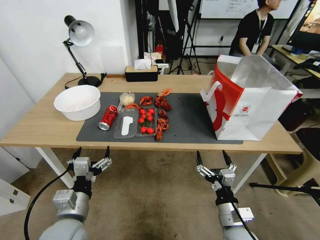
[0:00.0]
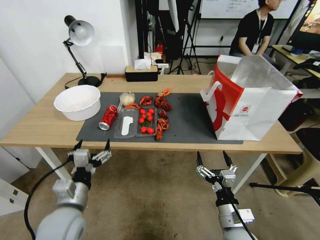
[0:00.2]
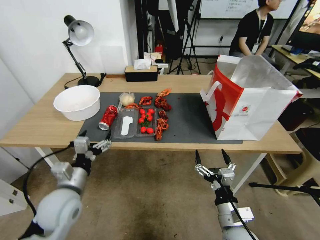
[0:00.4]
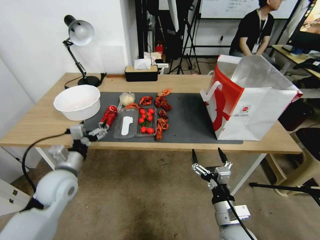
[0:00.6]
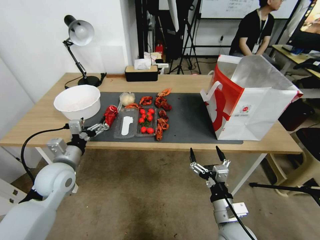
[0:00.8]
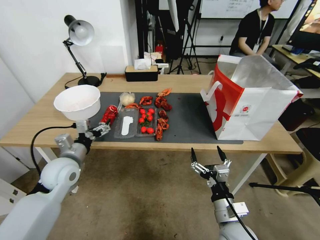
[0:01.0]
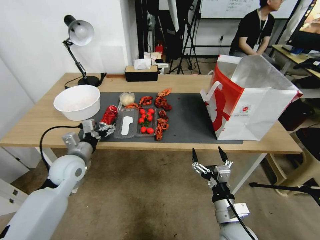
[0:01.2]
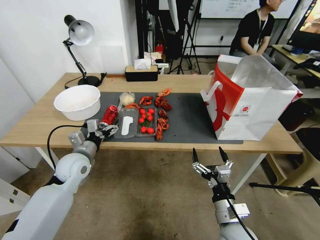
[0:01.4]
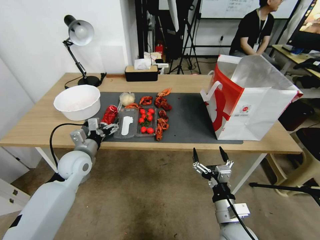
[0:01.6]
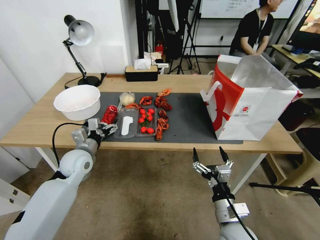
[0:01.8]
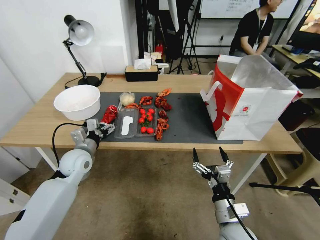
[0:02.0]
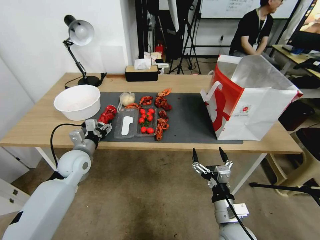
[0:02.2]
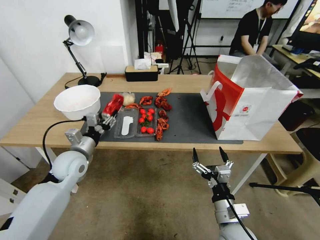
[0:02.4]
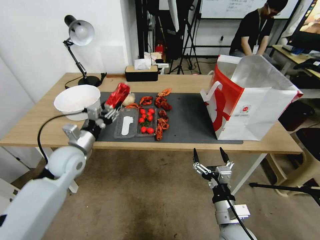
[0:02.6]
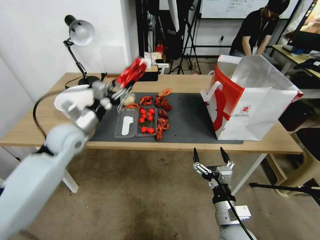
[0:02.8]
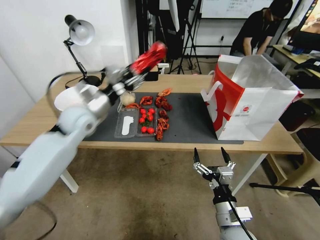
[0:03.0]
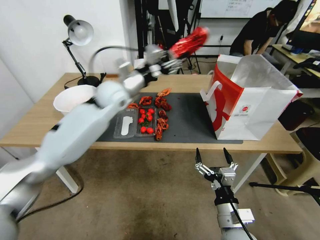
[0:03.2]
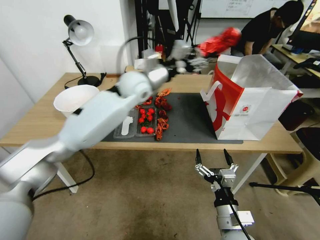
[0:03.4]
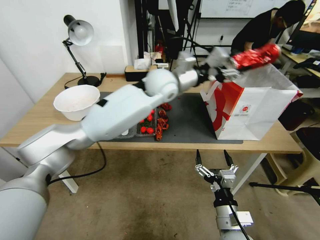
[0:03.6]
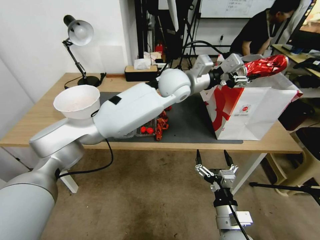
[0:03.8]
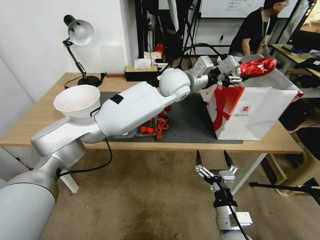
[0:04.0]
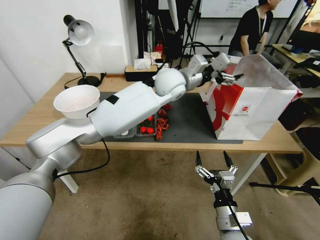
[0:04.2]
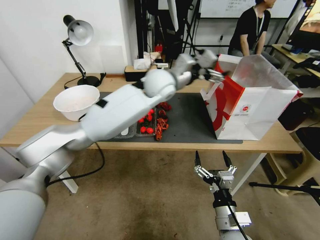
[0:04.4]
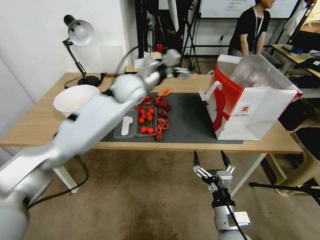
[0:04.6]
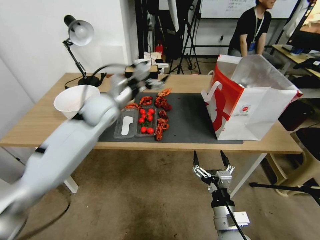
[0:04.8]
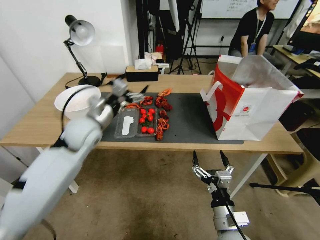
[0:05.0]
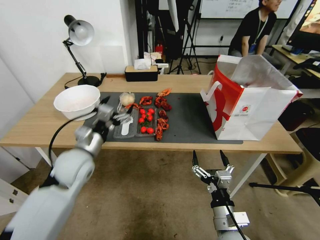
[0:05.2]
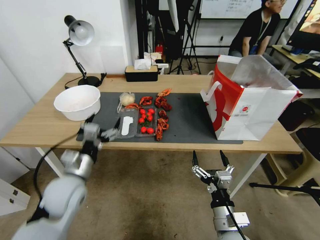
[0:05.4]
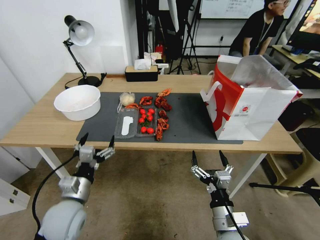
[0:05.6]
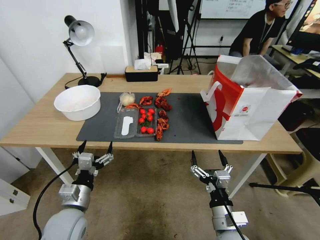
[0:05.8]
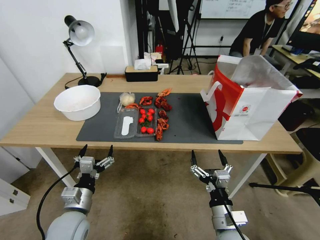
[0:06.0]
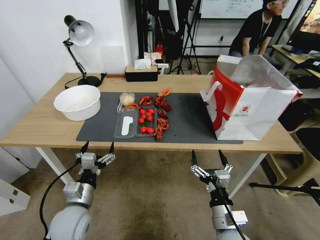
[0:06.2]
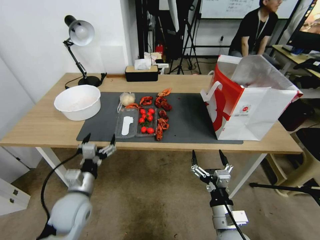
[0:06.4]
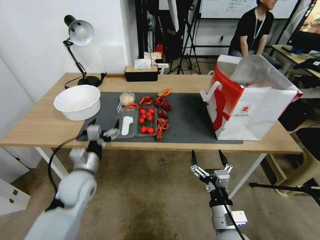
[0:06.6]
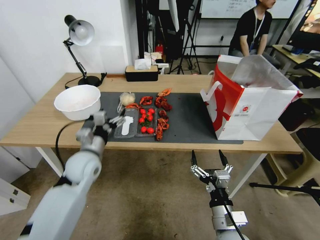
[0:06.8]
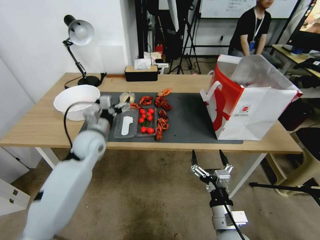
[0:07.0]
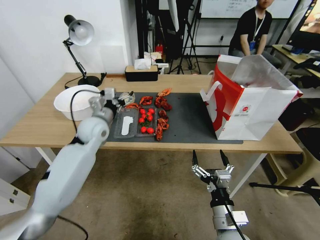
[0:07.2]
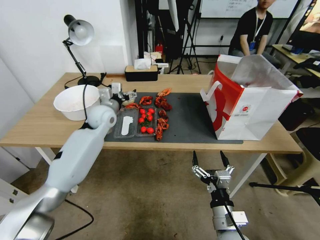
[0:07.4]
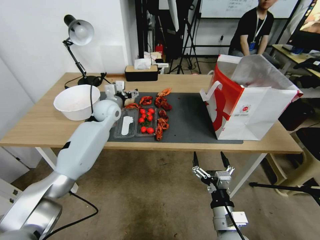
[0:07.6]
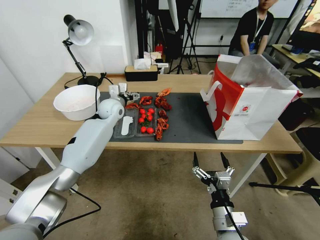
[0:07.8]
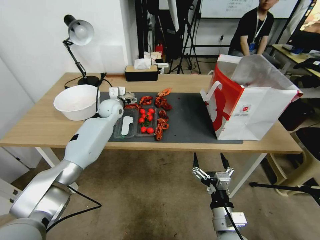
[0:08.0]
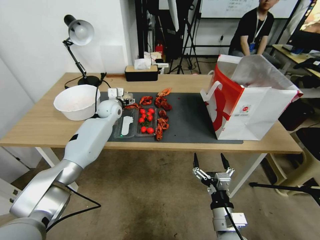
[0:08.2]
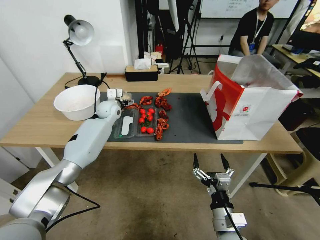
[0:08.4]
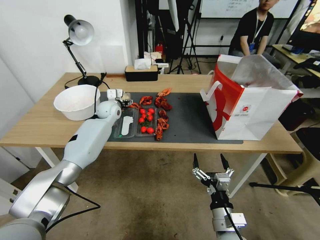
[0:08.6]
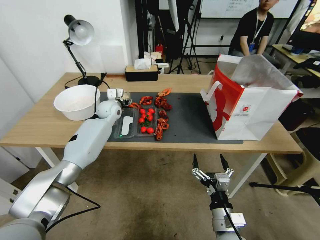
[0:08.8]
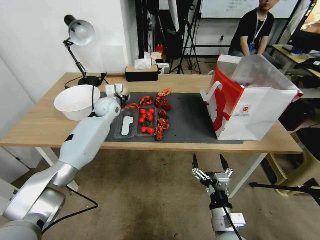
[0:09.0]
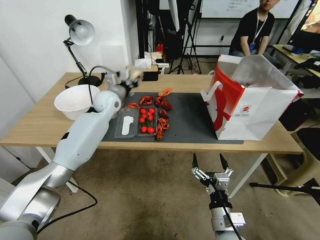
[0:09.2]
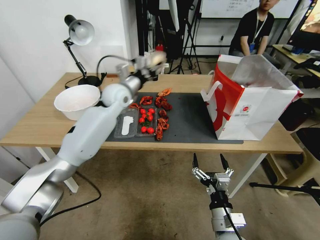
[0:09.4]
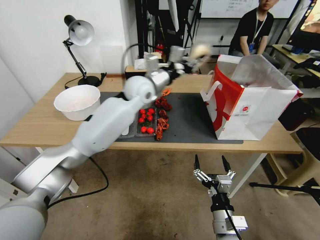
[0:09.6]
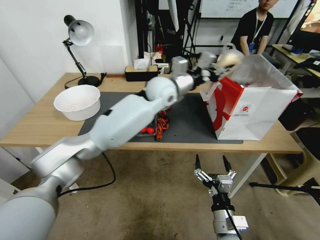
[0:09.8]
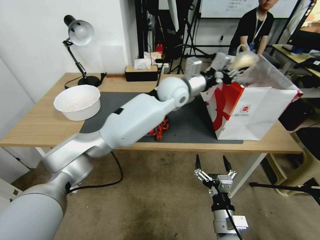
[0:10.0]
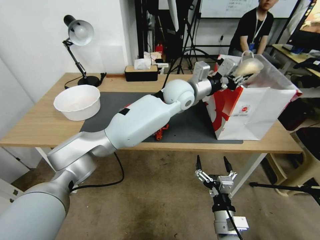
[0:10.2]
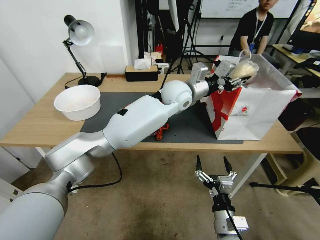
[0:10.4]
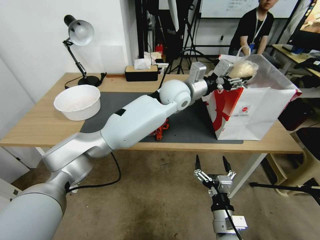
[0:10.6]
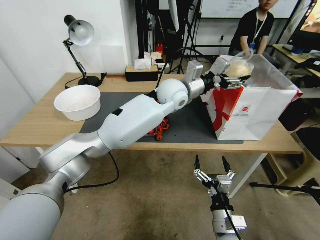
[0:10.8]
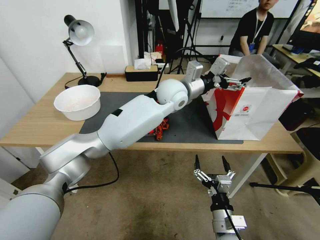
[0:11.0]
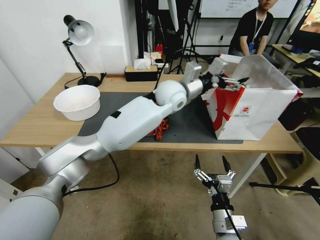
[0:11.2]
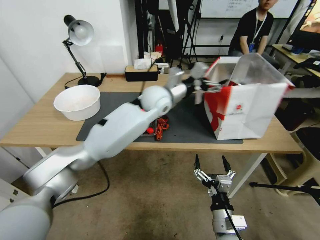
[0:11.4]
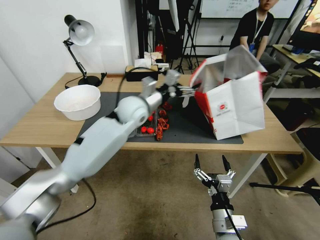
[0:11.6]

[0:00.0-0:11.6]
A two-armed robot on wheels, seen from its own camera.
0:00.0 to 0:01.4: The left gripper travels forward by some 15 cm.
0:01.4 to 0:02.8: The left gripper shifts some 5 cm upward, and closes up.
0:02.8 to 0:04.4: The left gripper moves to the right, forward and upward, approximately 40 cm, and opens up.
0:04.4 to 0:05.8: The left gripper is displaced backward, to the left and downward by some 50 cm.
0:05.8 to 0:07.2: The left gripper travels forward and upward by about 25 cm.
0:07.2 to 0:08.8: The left gripper heads forward, covering some 20 cm, and closes.
0:08.8 to 0:10.2: The left gripper is displaced to the right and upward by roughly 30 cm, and closes up.
0:10.2 to 0:11.6: The left gripper moves to the left, some 15 cm, and opens its fingers.

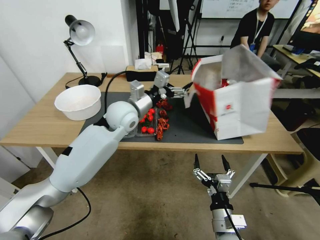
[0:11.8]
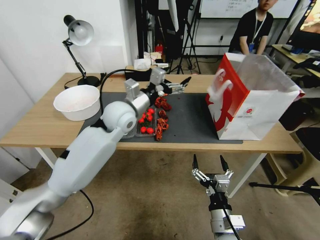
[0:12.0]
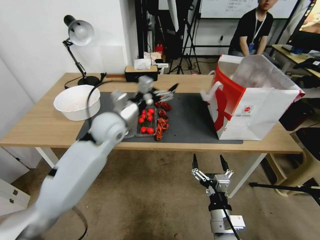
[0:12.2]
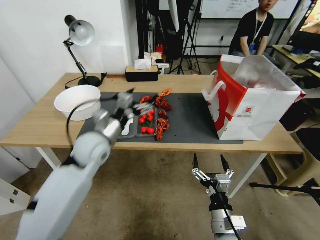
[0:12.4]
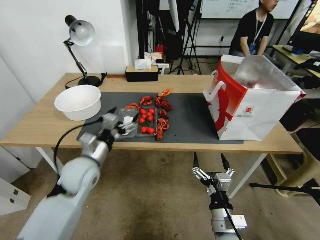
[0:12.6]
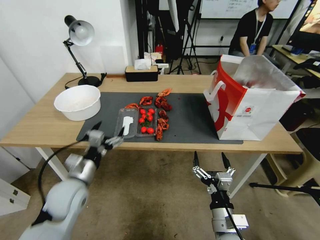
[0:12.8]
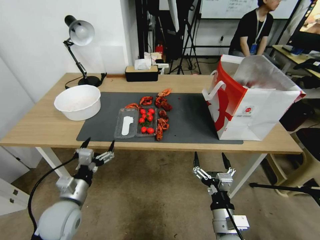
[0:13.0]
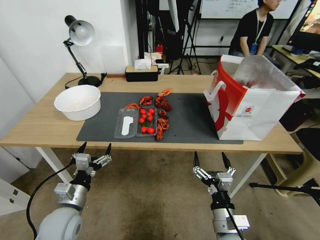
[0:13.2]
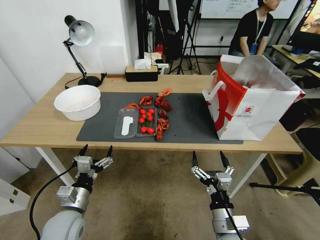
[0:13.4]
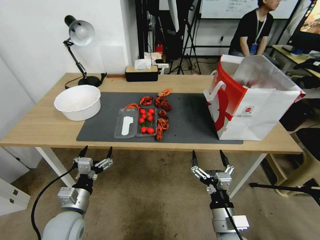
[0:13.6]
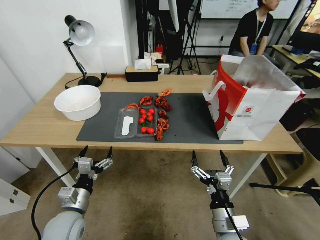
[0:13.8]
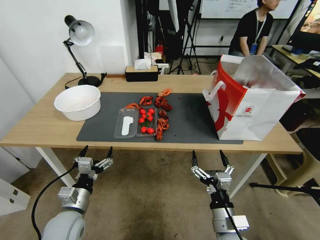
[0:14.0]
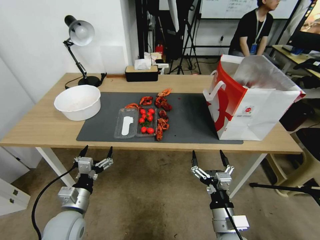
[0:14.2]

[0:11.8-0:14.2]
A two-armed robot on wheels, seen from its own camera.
0:11.8 to 0:13.0: The left gripper goes approximately 35 cm backward, downward and to the left.
0:13.0 to 0:14.2: The grippers make only small movements.

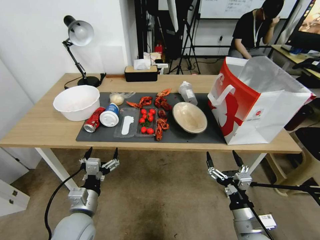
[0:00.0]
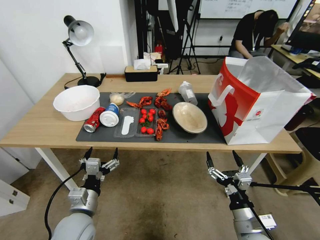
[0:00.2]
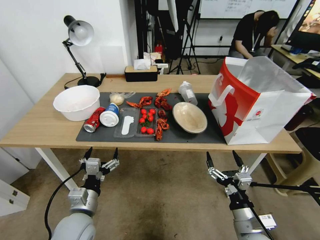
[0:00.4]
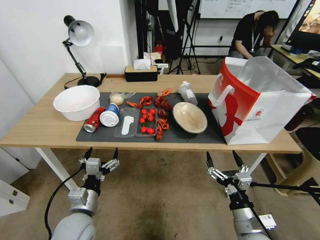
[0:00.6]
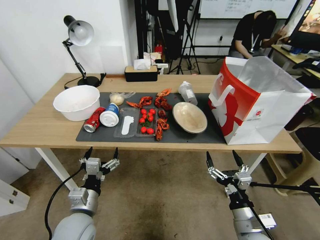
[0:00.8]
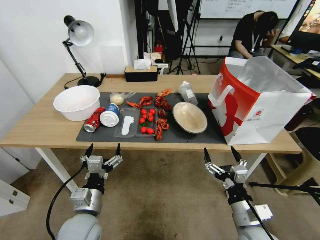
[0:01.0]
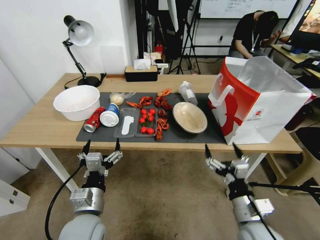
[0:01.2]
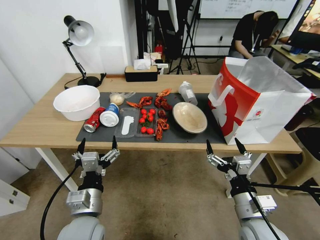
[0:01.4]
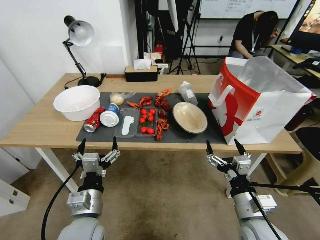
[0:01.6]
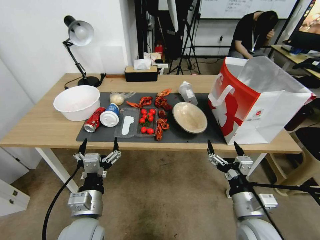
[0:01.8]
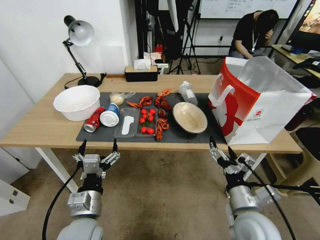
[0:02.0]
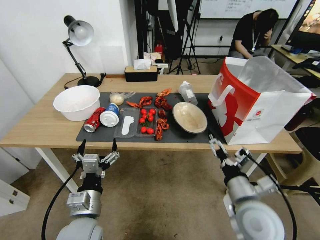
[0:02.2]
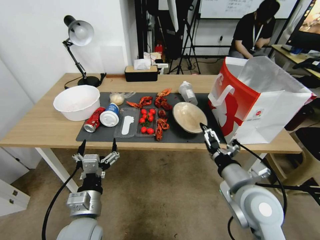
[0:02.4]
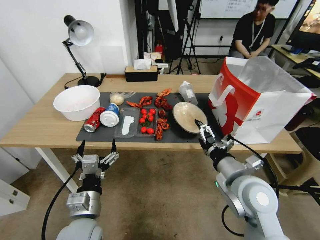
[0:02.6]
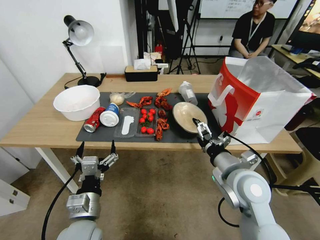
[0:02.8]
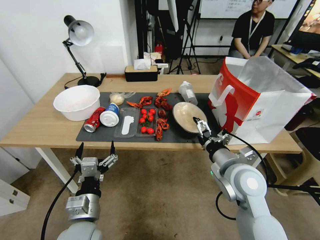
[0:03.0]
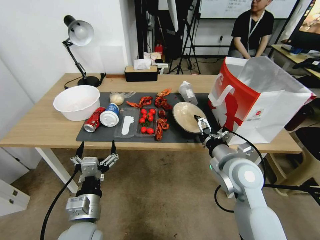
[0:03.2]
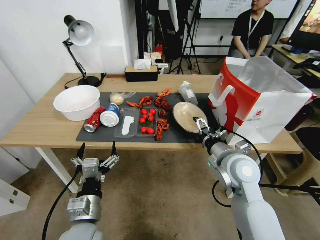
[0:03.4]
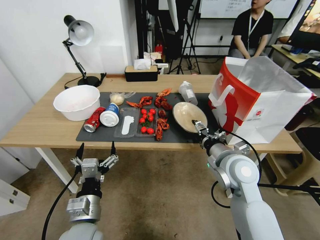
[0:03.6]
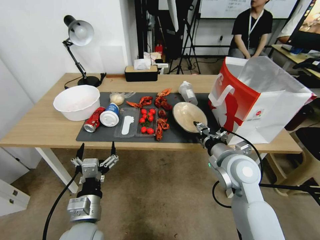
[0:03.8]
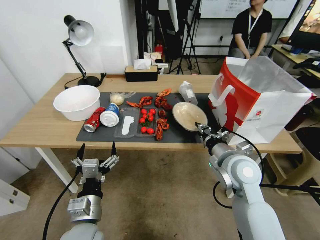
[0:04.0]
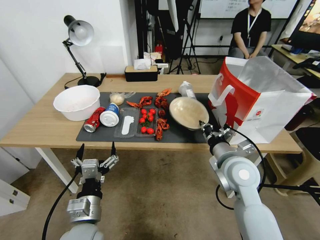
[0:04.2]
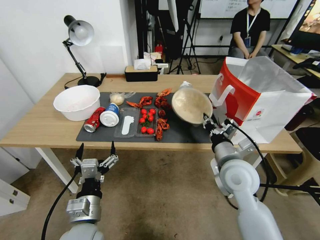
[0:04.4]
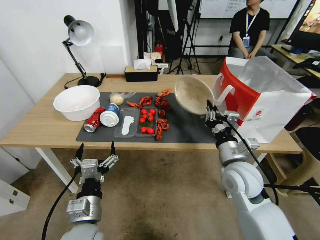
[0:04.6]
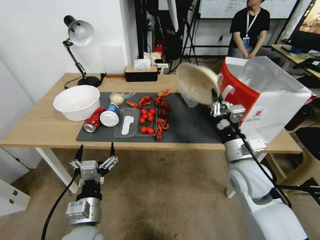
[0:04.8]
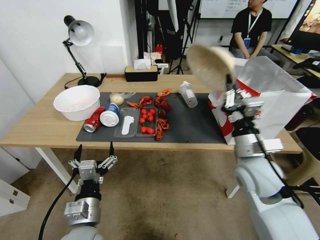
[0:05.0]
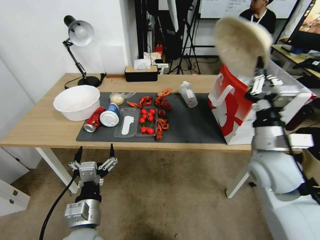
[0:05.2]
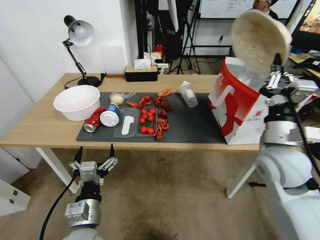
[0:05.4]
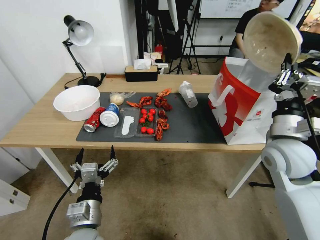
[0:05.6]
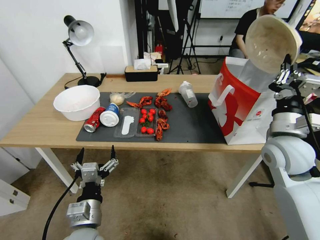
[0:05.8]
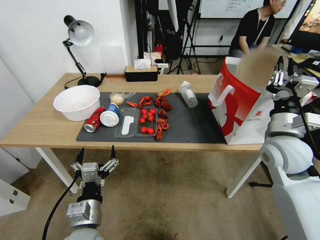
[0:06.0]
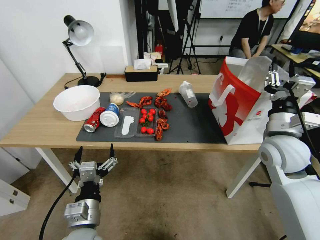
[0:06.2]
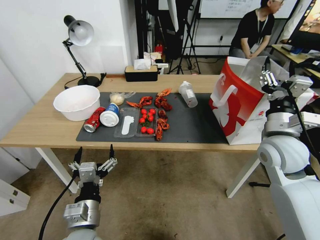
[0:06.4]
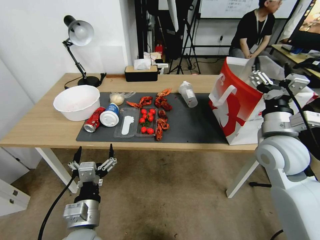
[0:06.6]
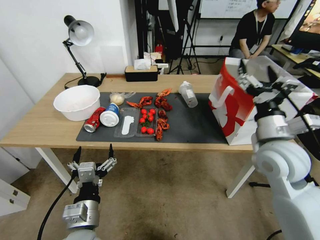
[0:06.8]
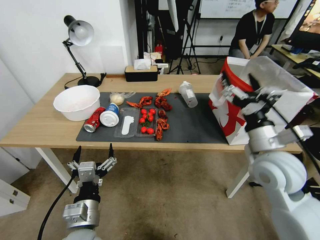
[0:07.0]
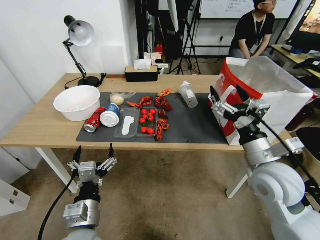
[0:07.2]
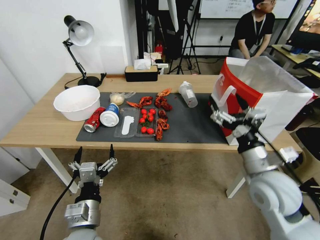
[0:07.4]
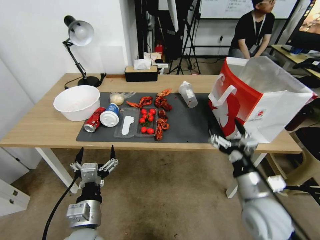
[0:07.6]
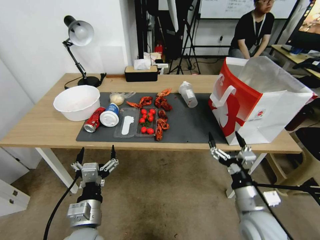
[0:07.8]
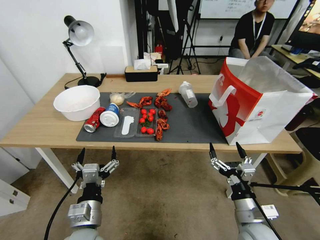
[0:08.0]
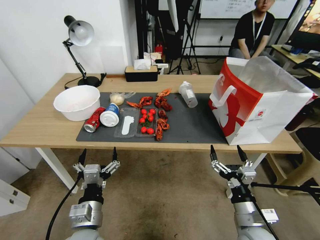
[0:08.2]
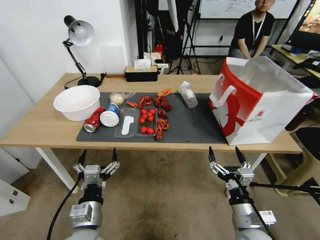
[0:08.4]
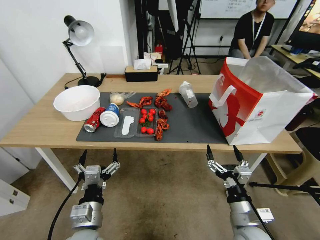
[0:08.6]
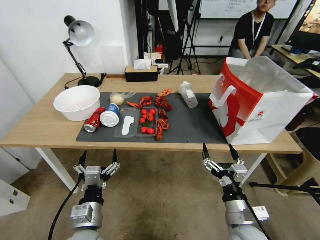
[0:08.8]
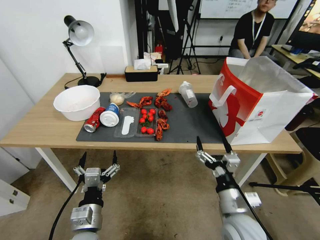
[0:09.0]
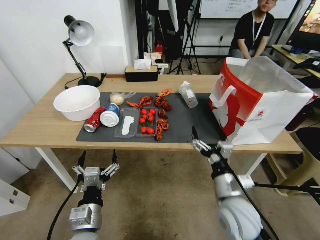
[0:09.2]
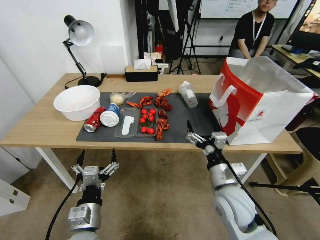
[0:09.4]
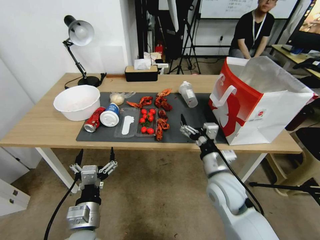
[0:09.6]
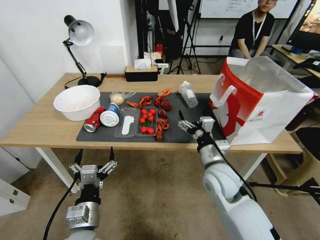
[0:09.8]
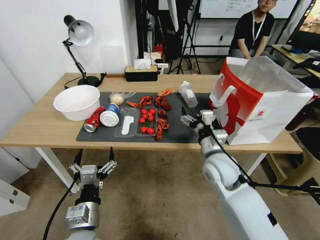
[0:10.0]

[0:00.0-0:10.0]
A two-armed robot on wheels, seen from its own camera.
0:01.4 to 0:02.8: The right gripper shifts about 10 cm forward and upward.
0:02.8 to 0:04.2: The right gripper closes its fingers.
0:04.2 to 0:05.8: The right gripper heads to the right and upward, covering roughly 10 cm.
0:05.8 to 0:07.2: The right gripper moves backward, roughly 5 cm, and opens its fingers.
0:07.2 to 0:08.6: The right gripper moves downward and backward, about 20 cm.
0:08.6 to 0:10.0: The right gripper heads forward, upward and to the left, covering approximately 20 cm.
